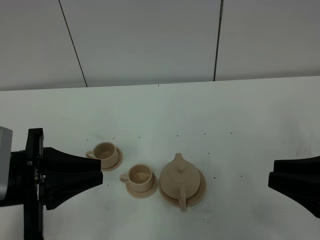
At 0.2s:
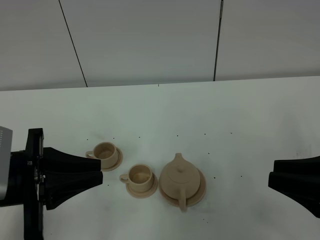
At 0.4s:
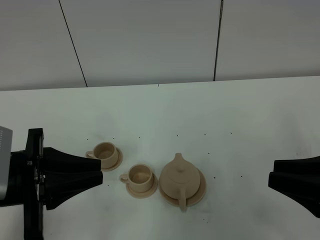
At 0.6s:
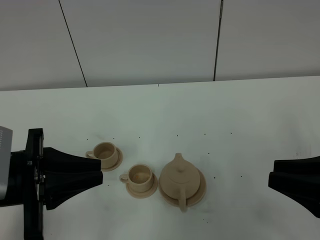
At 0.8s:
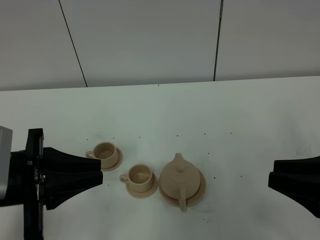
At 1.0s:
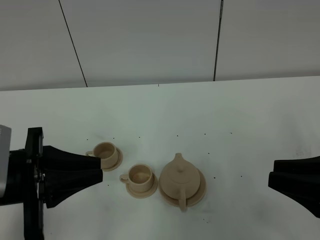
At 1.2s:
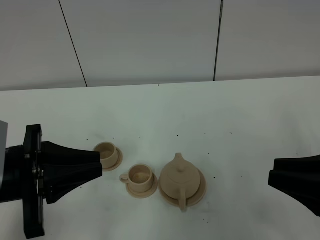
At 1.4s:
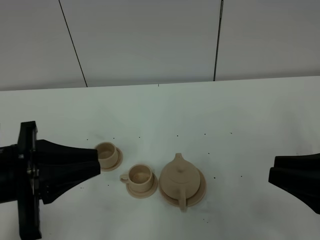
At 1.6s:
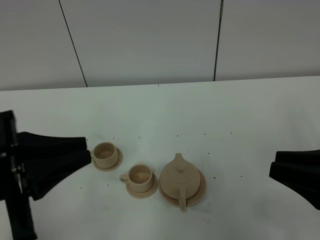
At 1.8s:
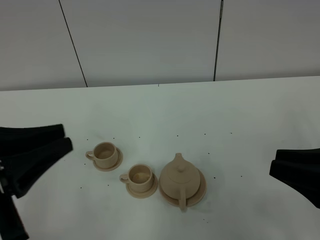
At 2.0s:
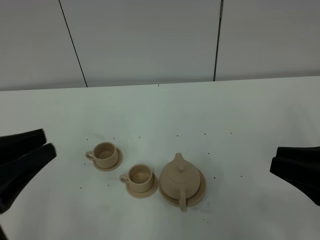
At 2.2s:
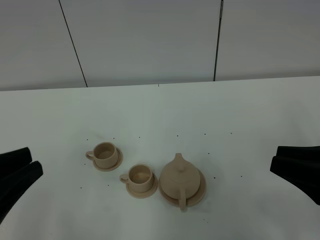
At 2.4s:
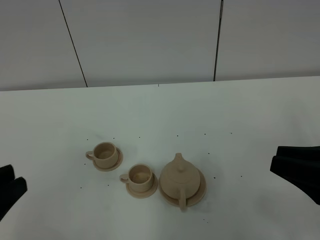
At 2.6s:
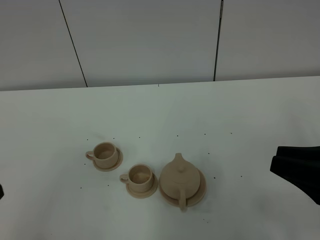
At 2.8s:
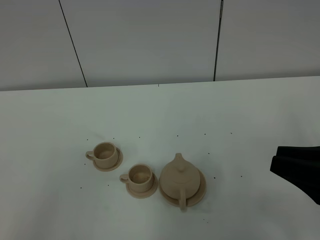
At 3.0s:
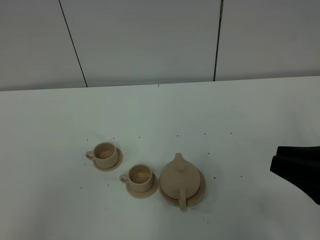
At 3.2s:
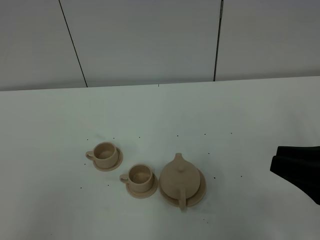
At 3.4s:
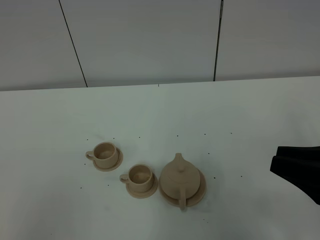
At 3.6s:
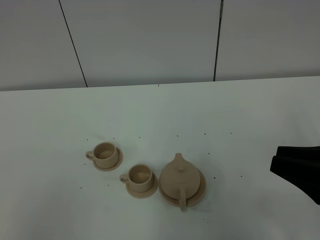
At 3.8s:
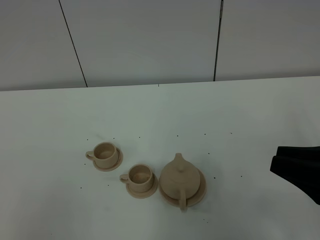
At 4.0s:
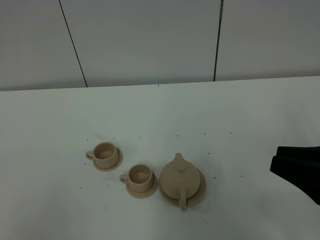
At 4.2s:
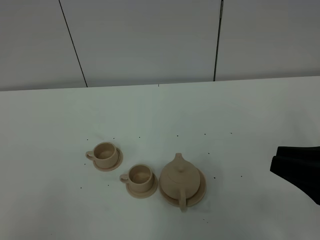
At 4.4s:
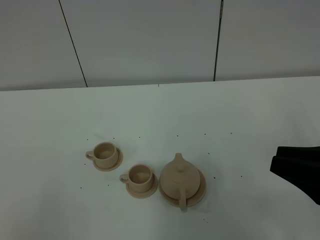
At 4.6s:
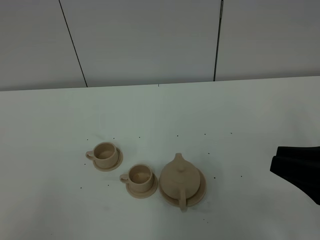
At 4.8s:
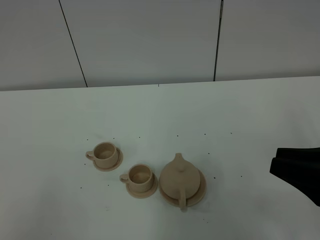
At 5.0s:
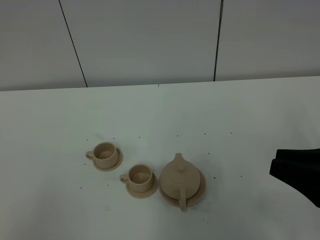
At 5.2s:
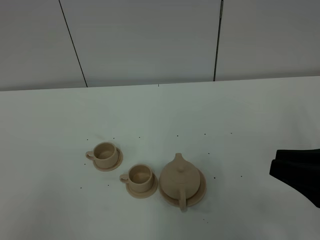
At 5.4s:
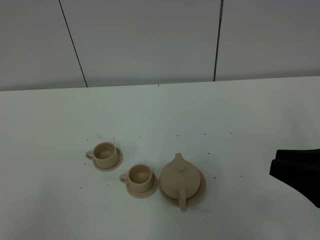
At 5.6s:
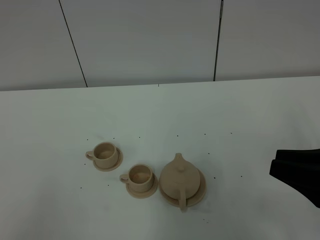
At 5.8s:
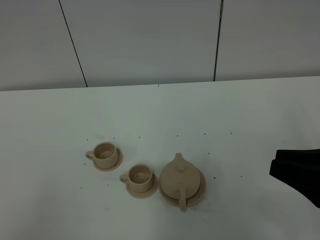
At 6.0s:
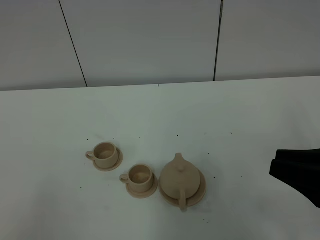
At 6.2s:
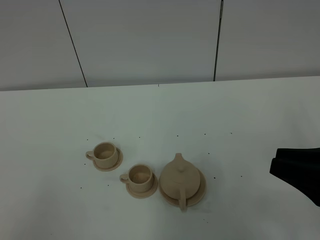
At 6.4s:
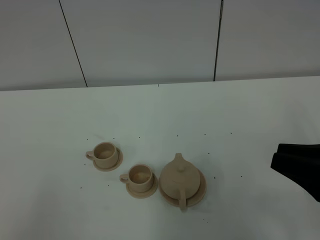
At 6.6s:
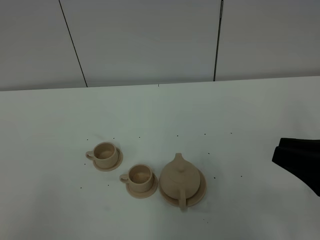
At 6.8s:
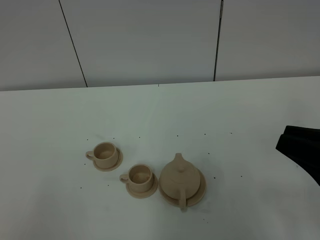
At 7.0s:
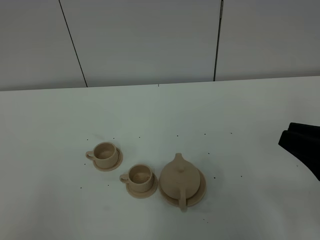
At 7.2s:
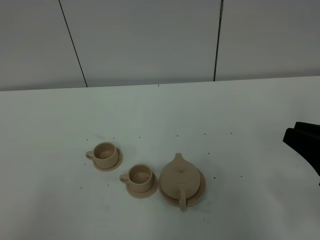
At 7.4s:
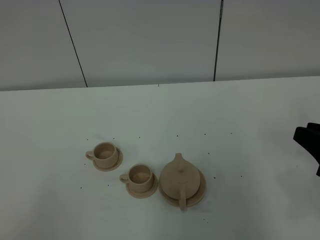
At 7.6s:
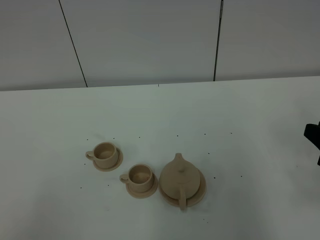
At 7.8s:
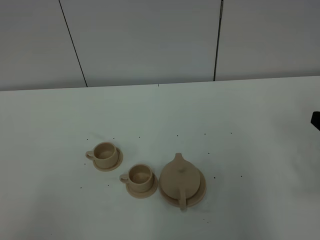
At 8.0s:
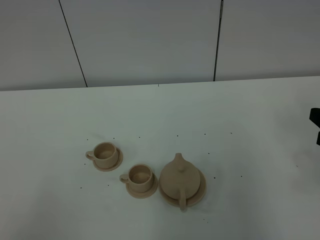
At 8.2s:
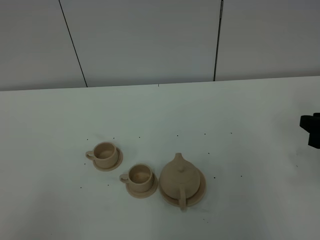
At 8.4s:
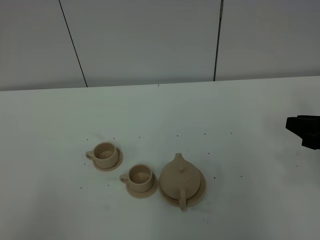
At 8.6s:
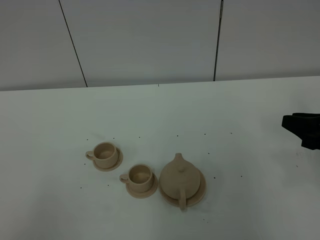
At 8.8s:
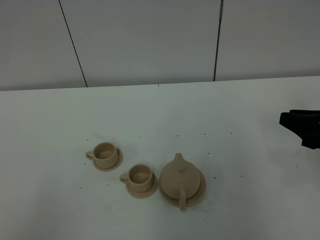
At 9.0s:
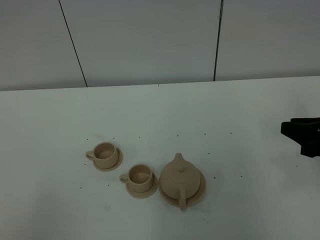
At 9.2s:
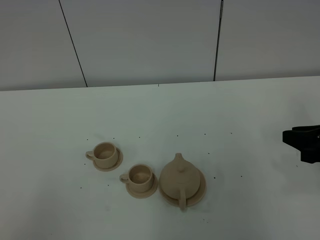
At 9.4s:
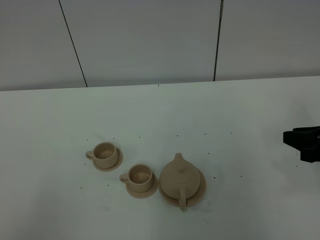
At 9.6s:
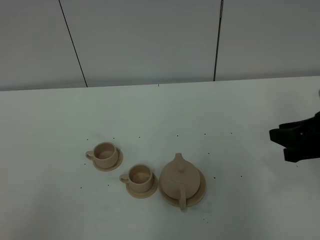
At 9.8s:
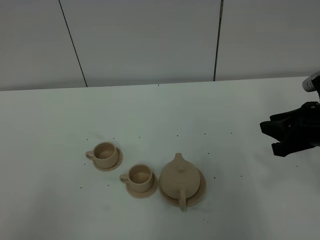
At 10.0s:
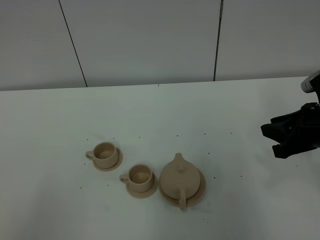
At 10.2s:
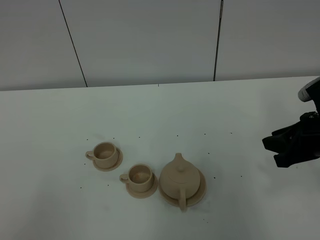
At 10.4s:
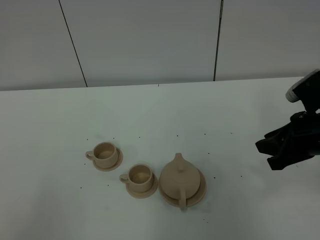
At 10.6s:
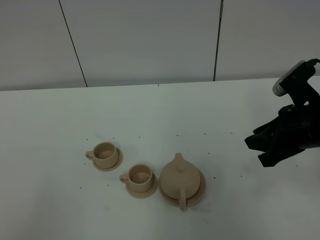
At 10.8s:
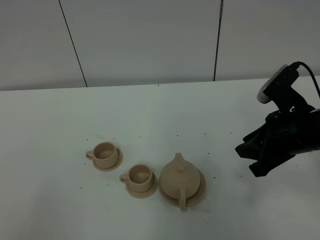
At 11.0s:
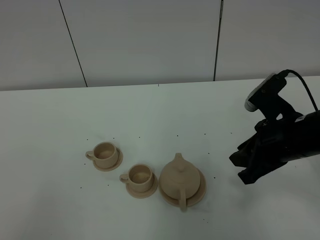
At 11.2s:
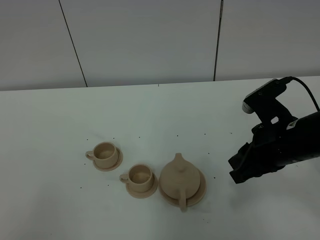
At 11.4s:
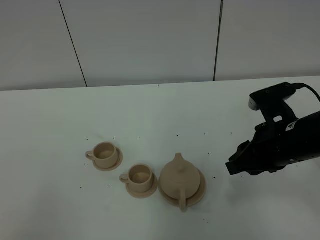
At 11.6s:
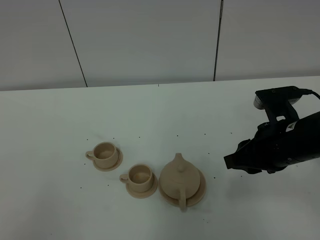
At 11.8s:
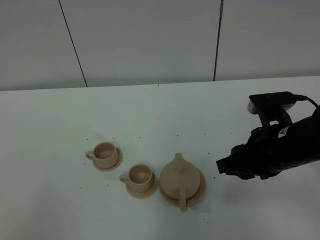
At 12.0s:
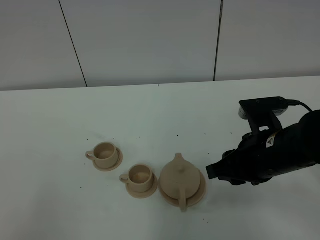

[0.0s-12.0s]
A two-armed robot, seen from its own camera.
Task of the whole recording: grasp the brown teapot and pour the tea into the two brown teacups one by one, put the brown teapot back in its original place.
0.0s to 1.6s: The left gripper moves some 5 cm.
1.6s to 3.0s: The left gripper travels backward by about 15 cm.
6.0s to 7.6s: The right gripper shifts by about 5 cm.
7.6s to 9.0s: The right gripper goes about 5 cm forward.
9.0s to 10.4s: The right gripper moves to the left, some 5 cm.
10.4s to 12.0s: The right gripper is displaced to the left by roughly 10 cm.

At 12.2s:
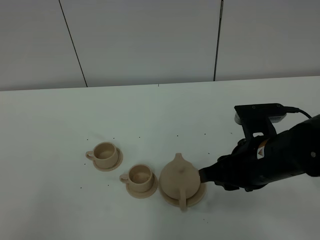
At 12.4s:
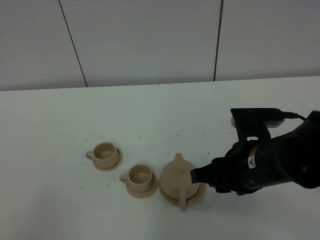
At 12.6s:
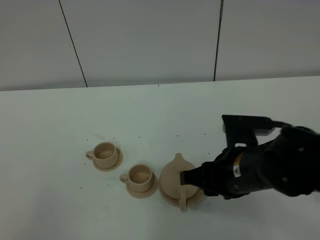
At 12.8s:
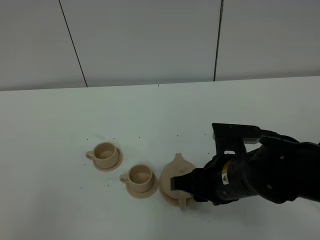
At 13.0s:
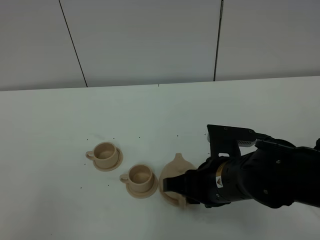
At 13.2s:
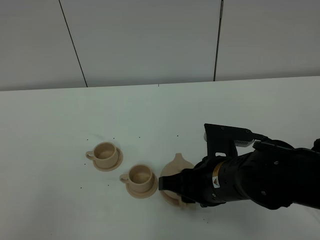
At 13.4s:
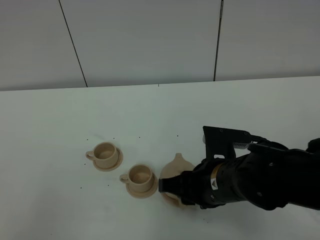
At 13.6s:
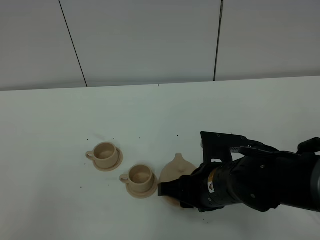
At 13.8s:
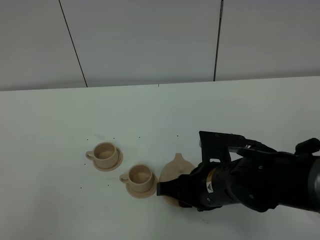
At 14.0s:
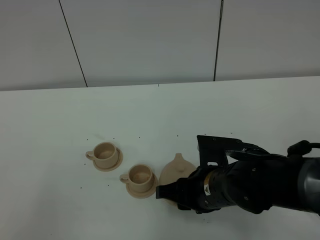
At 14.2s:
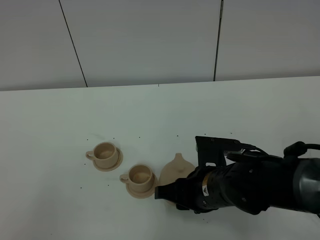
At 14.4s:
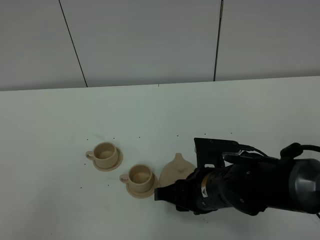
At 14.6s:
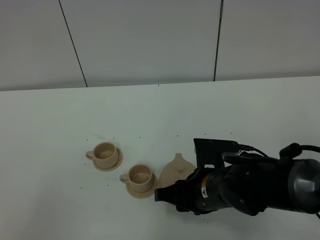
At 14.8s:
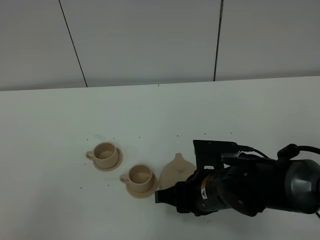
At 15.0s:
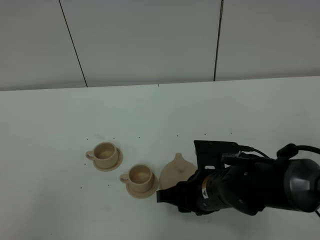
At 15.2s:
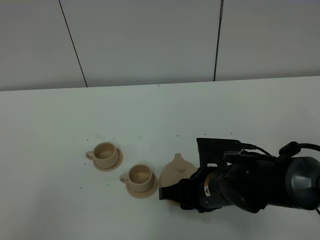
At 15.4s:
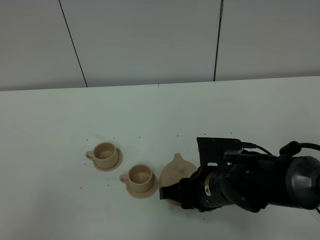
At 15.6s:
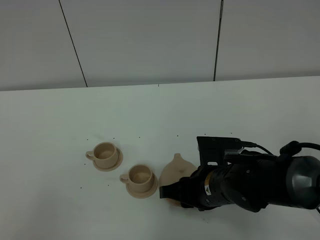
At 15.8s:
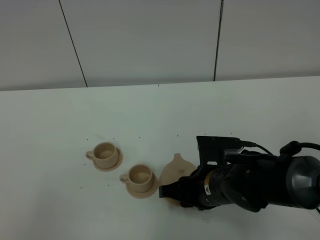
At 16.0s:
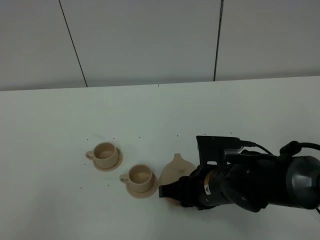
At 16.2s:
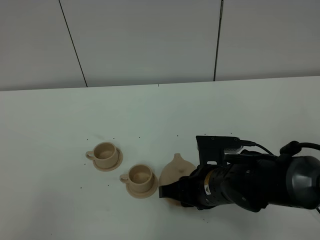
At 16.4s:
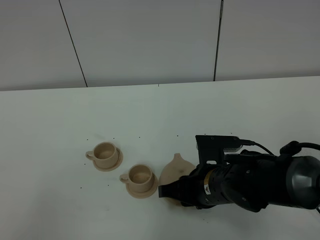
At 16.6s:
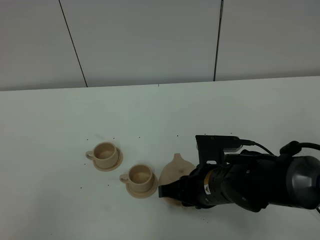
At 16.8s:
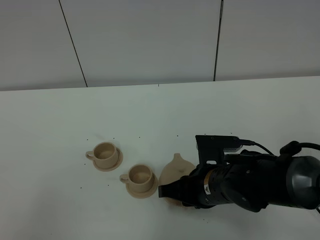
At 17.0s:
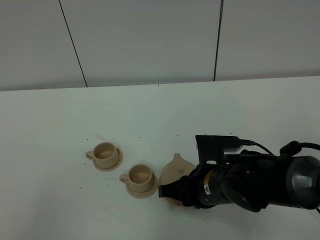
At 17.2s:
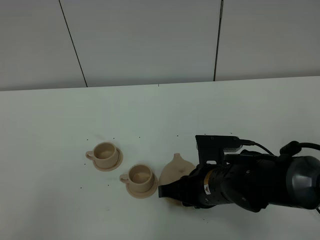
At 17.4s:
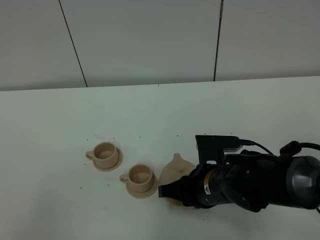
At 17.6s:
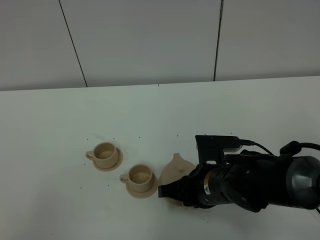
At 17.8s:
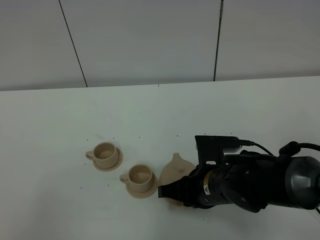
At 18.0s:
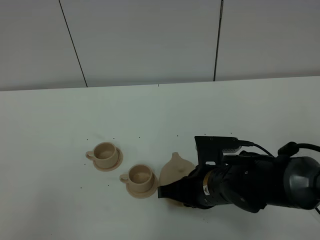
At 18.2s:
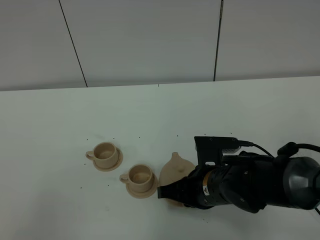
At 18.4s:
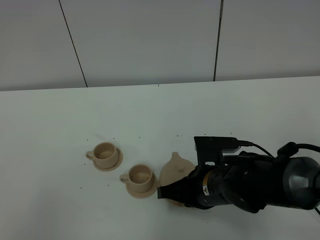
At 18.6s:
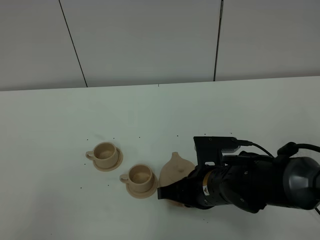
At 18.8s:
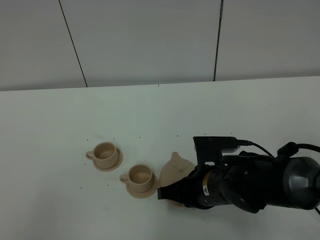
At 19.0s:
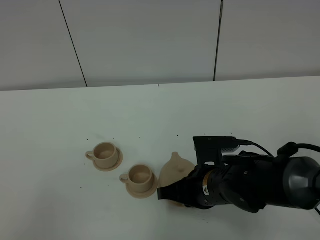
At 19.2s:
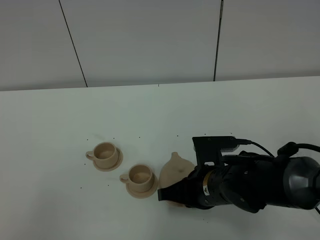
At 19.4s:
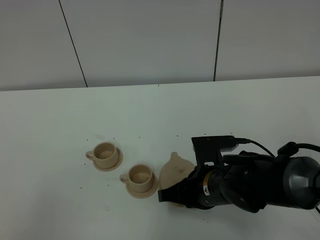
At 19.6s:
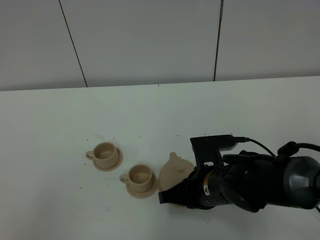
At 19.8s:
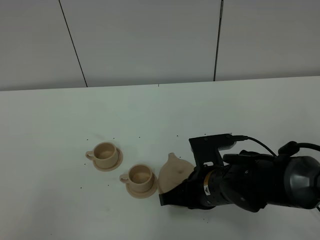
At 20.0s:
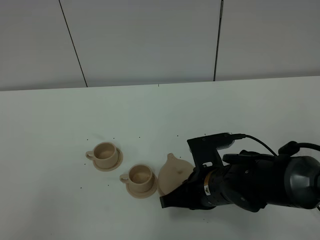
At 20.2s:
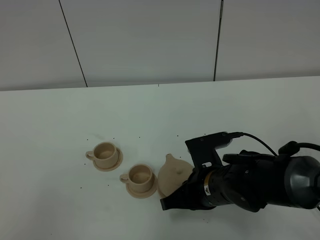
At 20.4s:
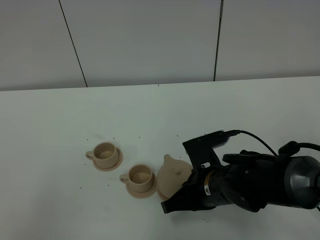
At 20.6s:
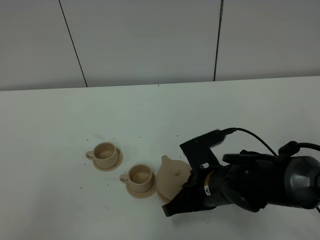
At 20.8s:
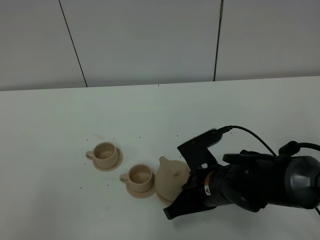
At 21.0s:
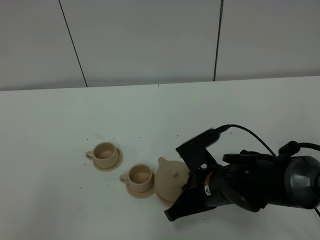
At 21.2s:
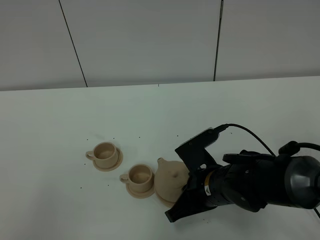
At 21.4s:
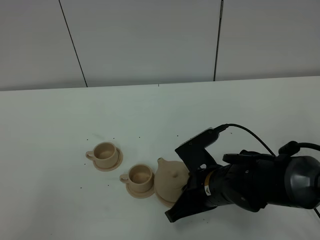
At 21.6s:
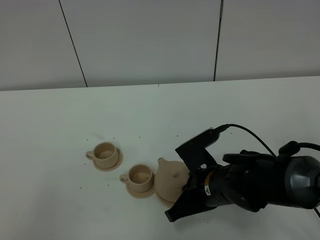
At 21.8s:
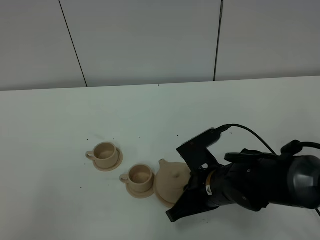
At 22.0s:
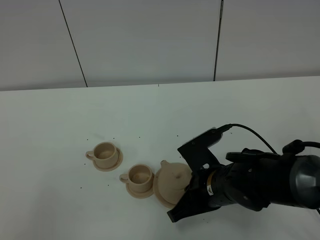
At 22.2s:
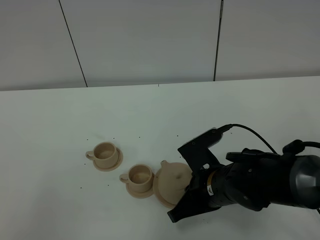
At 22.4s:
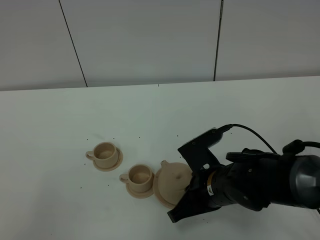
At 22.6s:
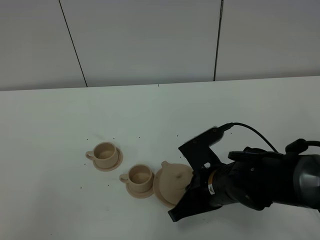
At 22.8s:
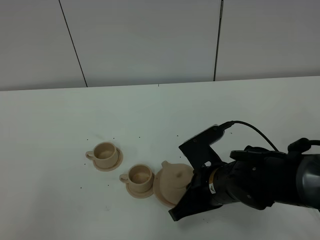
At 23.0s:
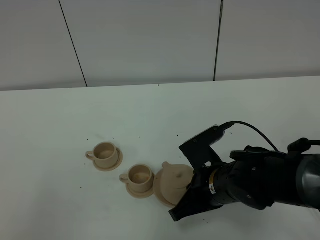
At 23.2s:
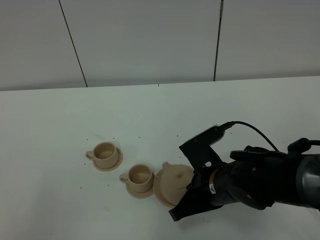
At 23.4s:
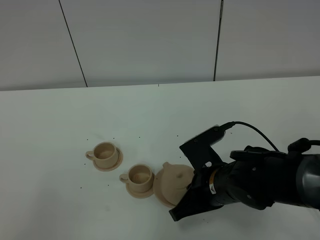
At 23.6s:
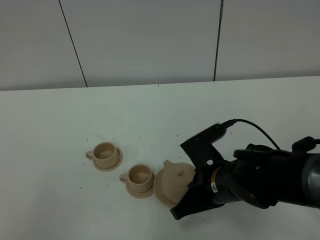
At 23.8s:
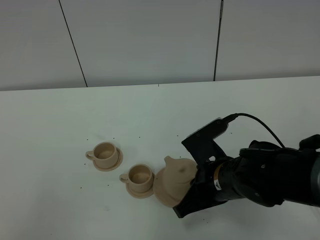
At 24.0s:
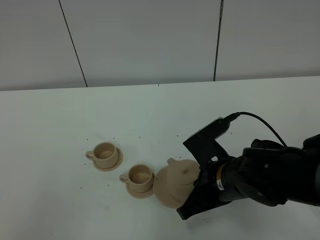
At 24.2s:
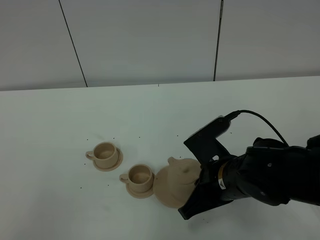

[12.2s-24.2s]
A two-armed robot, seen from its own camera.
Task of the whole recording: grasp the brown teapot and pour the tea into the two brown teacups one by one, put the brown teapot back in its original place.
Step, 12.2s to 22.4s: Pick up the teapot with the right gripper.
12.2s to 13.8s: The right gripper shifts roughly 10 cm to the left and downward.
13.8s to 15.2s: The grippers move only a little.
15.2s to 16.6s: Both grippers stay about where they are.
16.6s to 18.2s: The right gripper closes.
18.2s to 19.8s: The grippers move only a little.
21.2s to 22.6s: Both grippers stay about where they are.
22.6s to 24.2s: The grippers move only a little.
